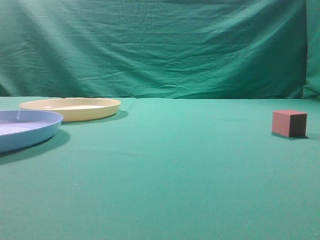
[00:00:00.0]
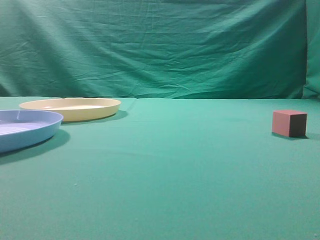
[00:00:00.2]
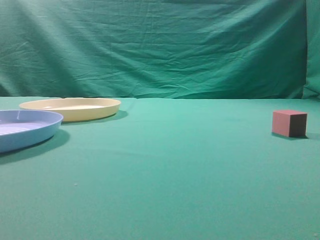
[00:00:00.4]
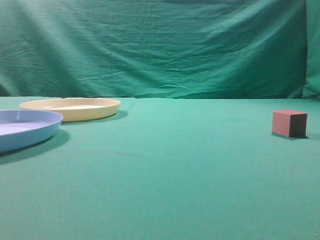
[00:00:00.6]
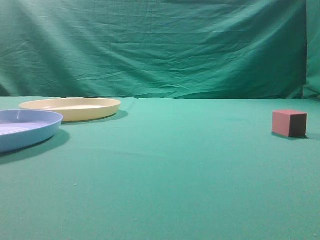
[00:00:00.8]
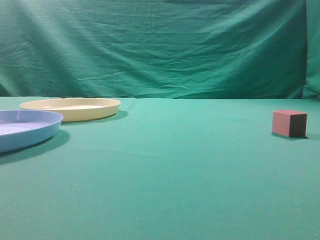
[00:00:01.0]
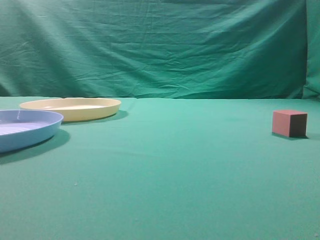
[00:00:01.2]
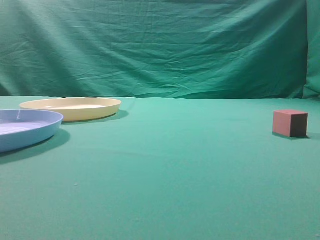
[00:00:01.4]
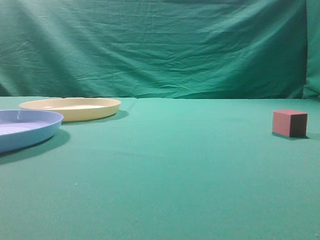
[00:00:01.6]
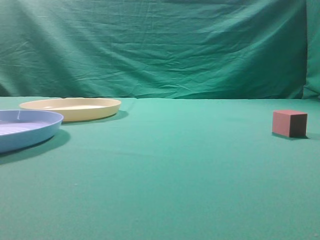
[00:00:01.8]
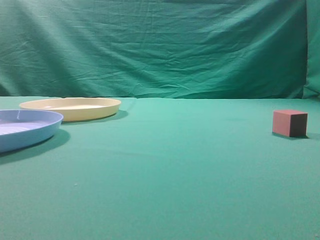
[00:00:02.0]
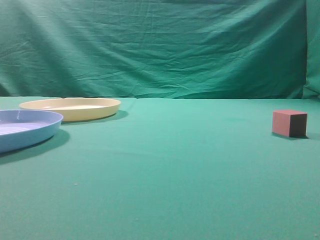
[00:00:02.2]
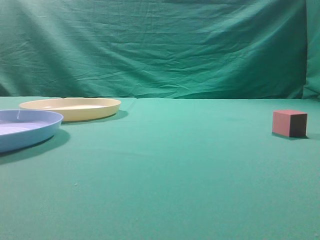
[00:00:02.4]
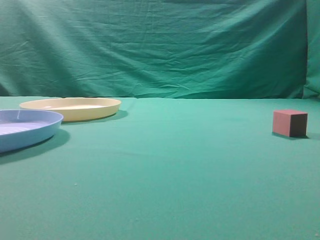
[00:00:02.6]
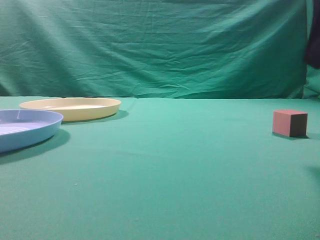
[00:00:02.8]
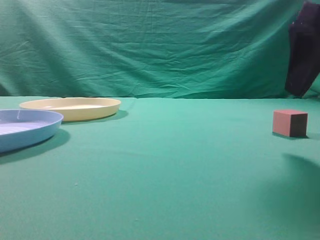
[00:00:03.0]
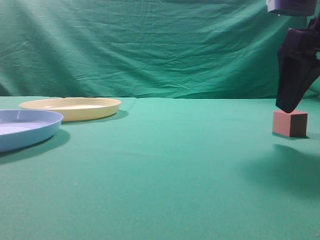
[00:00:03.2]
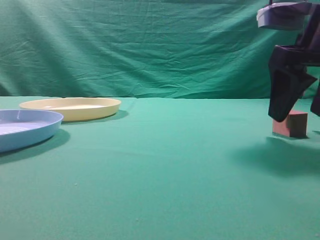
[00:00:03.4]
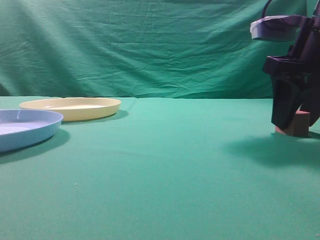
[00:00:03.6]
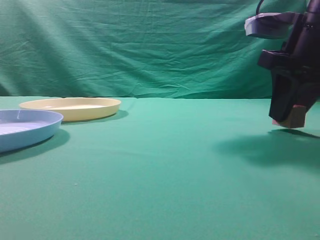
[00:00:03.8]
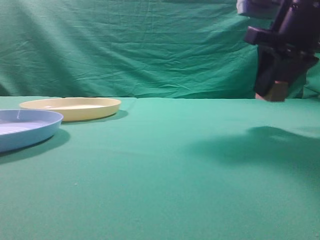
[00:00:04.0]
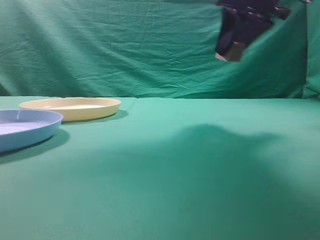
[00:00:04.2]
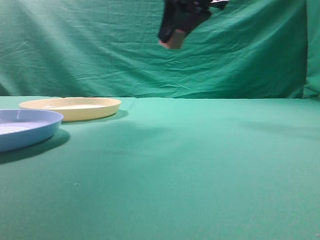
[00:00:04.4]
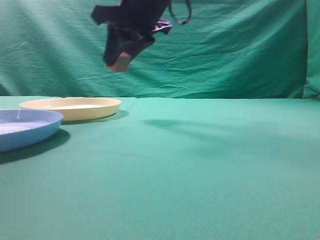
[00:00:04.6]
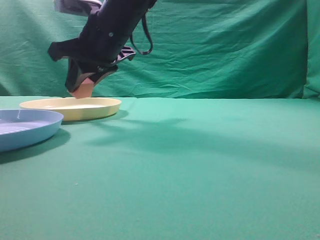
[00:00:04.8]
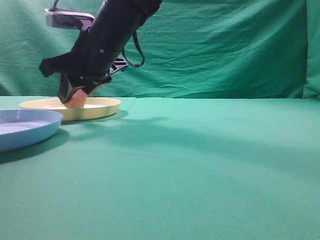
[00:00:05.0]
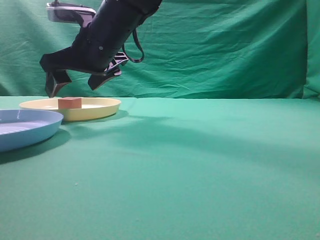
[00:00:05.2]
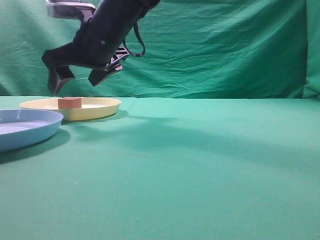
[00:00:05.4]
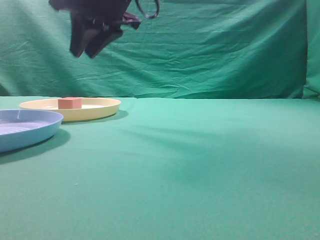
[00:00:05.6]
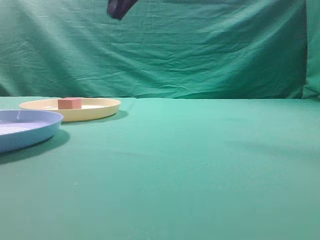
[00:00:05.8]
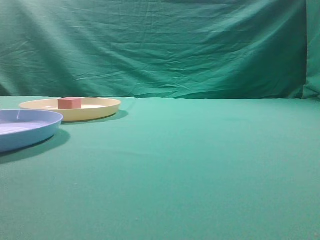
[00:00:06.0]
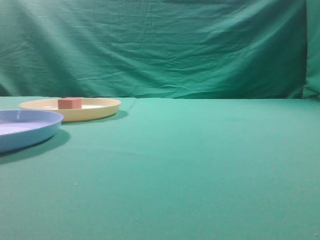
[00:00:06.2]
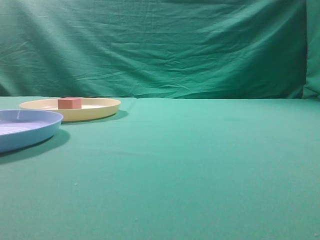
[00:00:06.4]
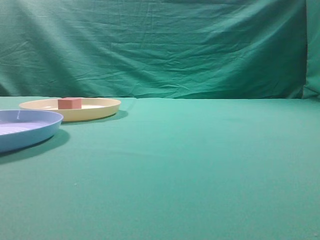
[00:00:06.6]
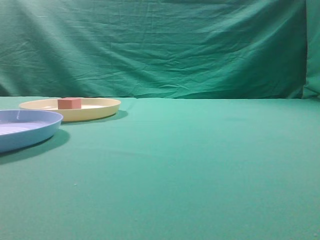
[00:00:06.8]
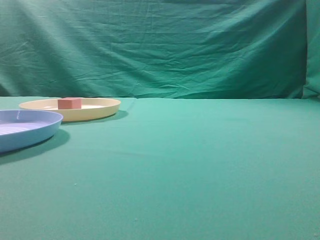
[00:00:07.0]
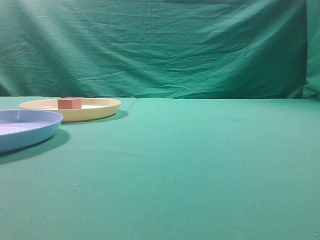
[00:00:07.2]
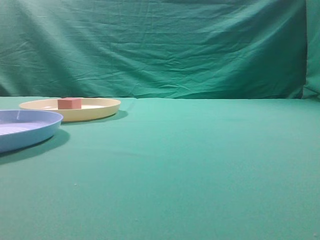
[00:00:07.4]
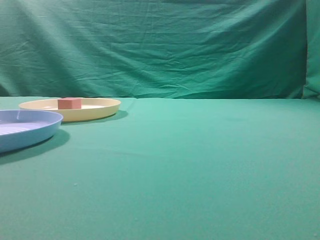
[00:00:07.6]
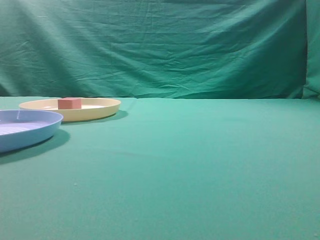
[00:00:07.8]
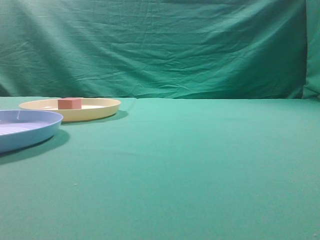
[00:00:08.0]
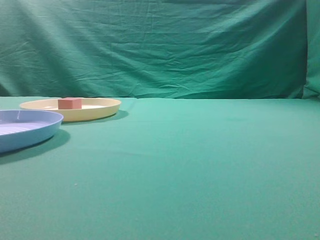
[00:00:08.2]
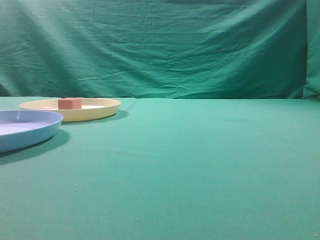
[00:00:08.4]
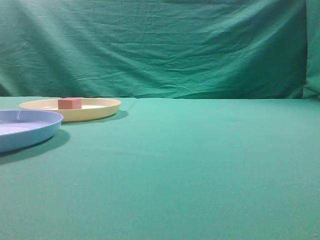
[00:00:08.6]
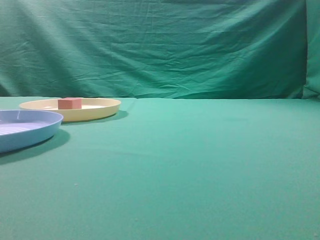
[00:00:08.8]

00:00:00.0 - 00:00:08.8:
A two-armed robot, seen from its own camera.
Task of the whole recording: pick up the cube block from the table and put it on the plate.
Step, 00:00:00.0 - 00:00:03.8: Grasp the small cube on the table.
Step, 00:00:04.0 - 00:00:05.4: Place it into the yellow plate.
00:00:01.4 - 00:00:03.0: The right gripper moves forward, roughly 20 cm, and opens.
00:00:03.0 - 00:00:04.4: The right gripper heads to the left and forward, covering approximately 20 cm, and closes up.
00:00:04.4 - 00:00:05.8: The right gripper shifts about 10 cm upward and to the left, and closes its fingers.
